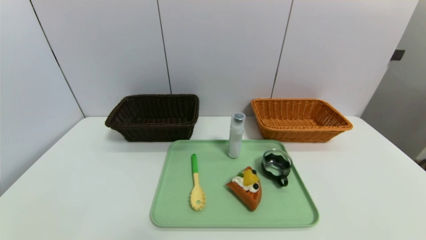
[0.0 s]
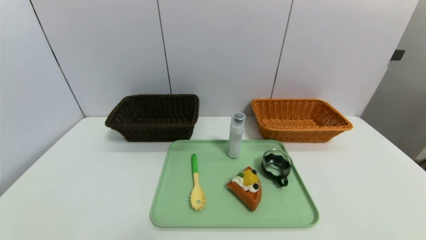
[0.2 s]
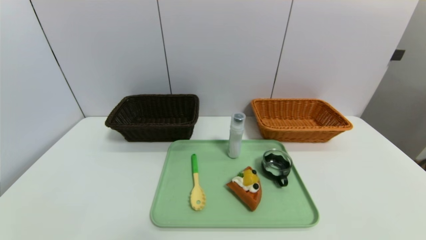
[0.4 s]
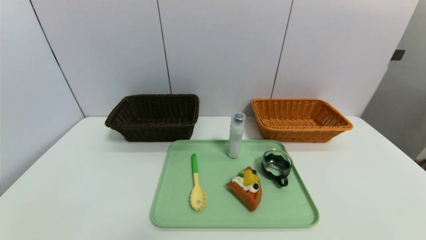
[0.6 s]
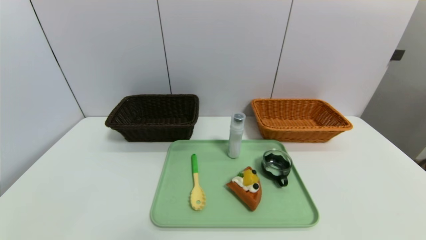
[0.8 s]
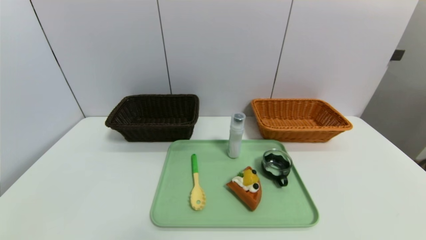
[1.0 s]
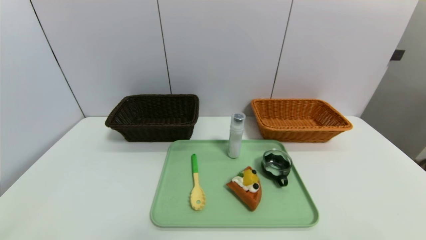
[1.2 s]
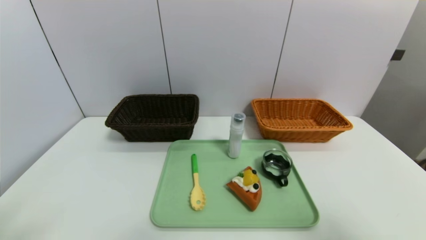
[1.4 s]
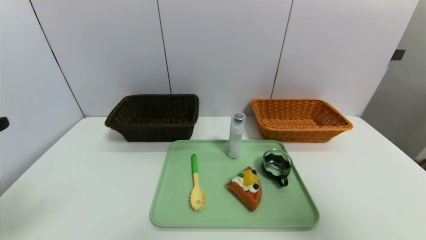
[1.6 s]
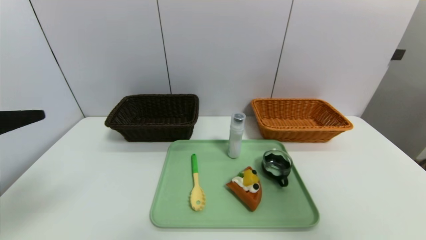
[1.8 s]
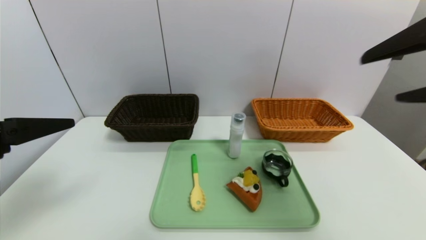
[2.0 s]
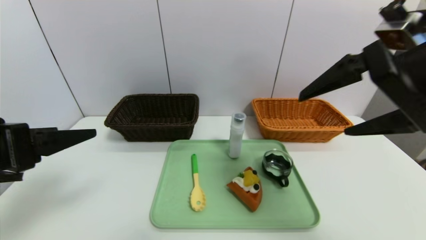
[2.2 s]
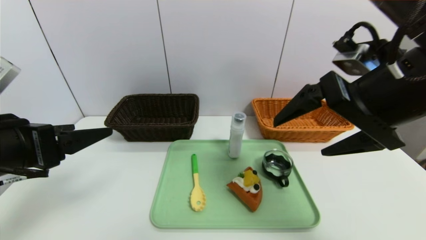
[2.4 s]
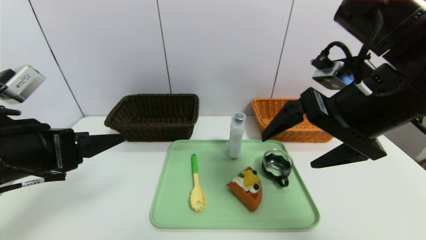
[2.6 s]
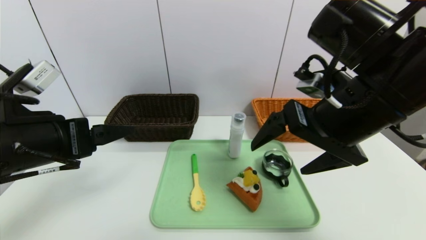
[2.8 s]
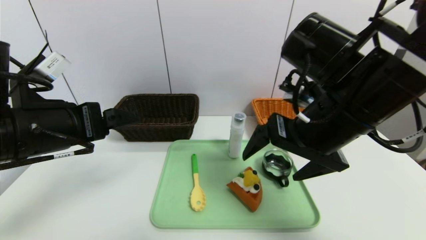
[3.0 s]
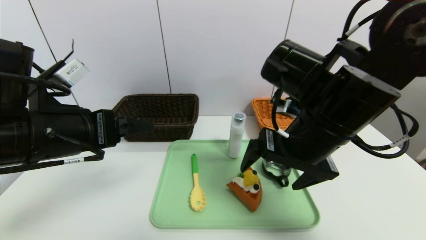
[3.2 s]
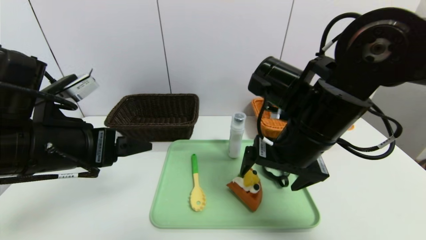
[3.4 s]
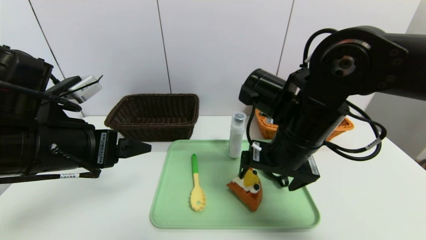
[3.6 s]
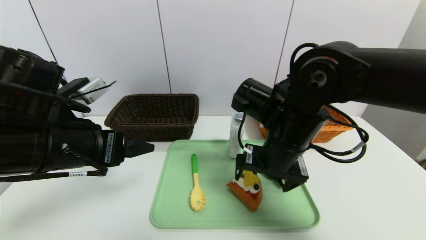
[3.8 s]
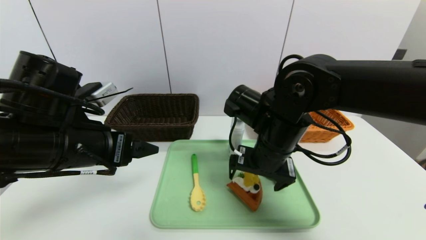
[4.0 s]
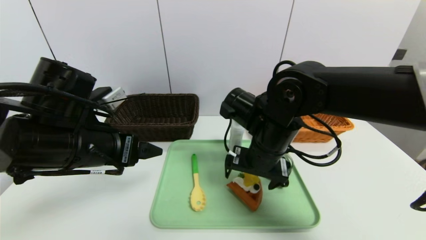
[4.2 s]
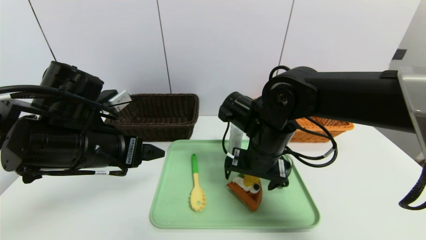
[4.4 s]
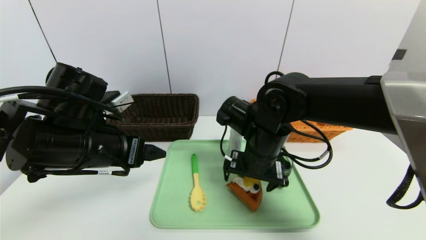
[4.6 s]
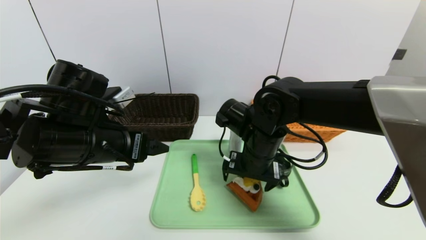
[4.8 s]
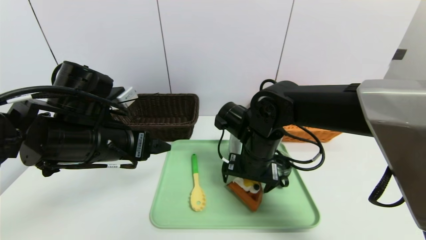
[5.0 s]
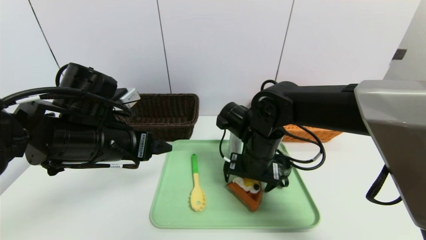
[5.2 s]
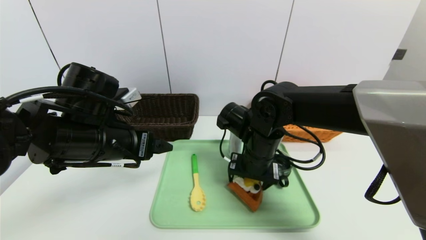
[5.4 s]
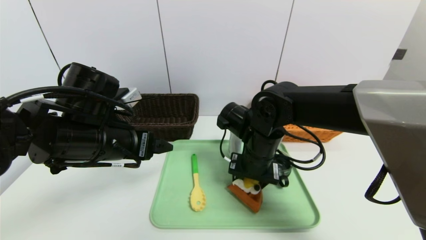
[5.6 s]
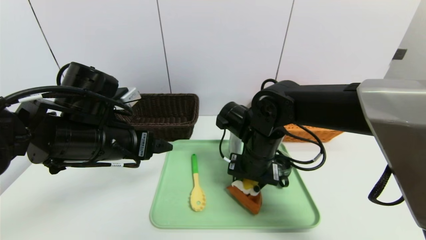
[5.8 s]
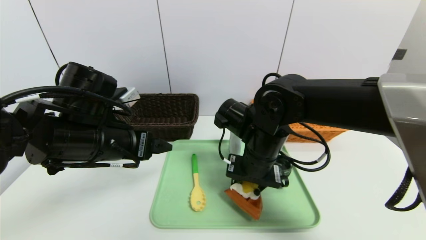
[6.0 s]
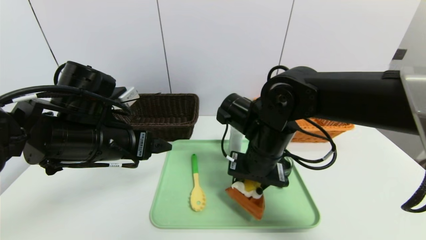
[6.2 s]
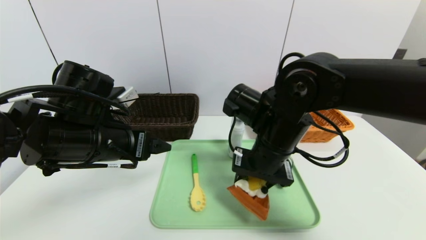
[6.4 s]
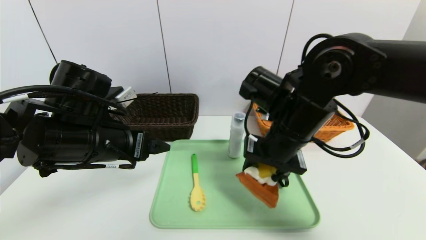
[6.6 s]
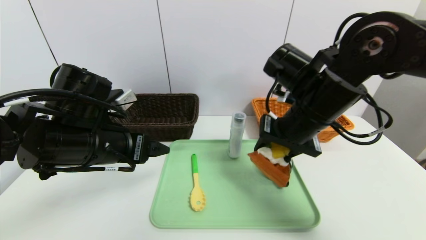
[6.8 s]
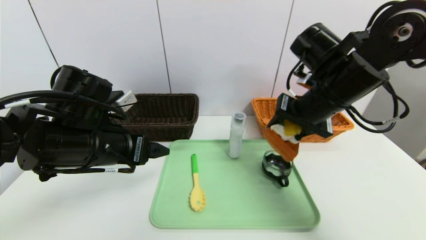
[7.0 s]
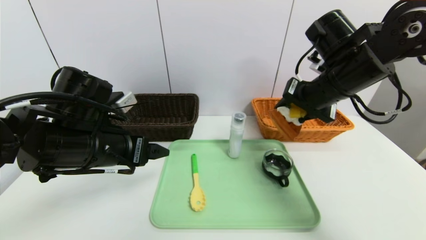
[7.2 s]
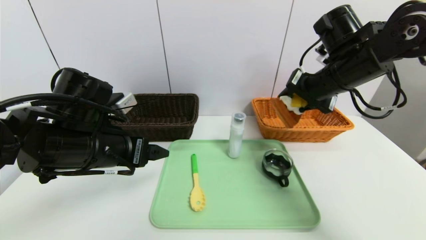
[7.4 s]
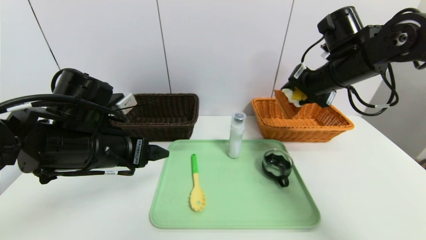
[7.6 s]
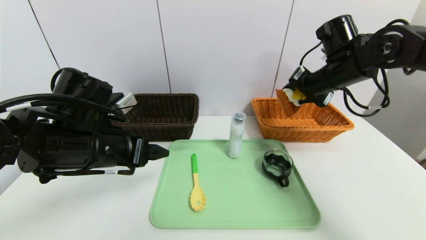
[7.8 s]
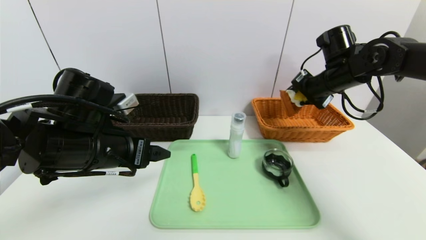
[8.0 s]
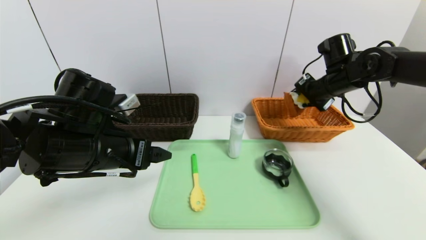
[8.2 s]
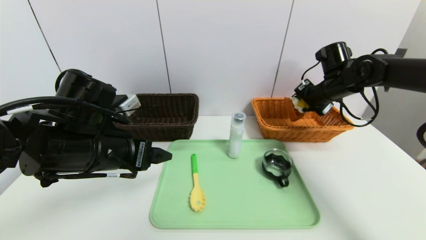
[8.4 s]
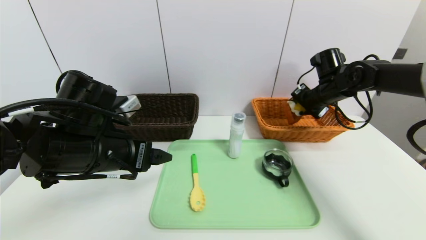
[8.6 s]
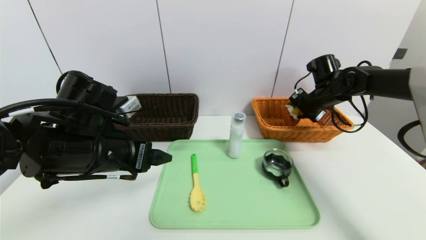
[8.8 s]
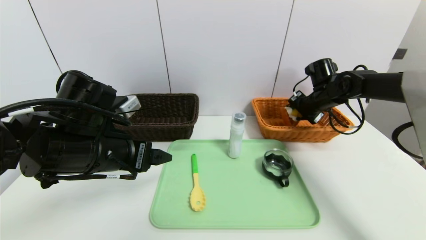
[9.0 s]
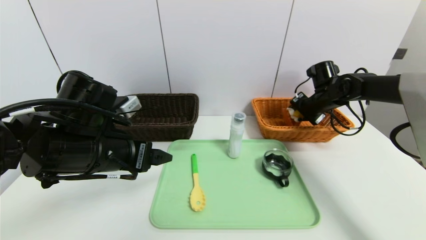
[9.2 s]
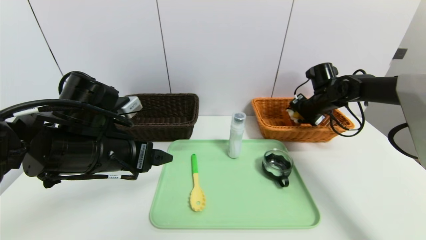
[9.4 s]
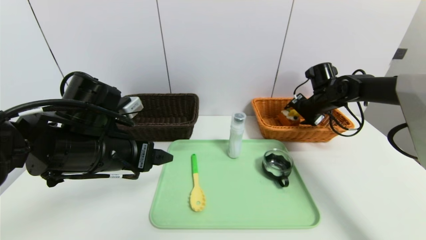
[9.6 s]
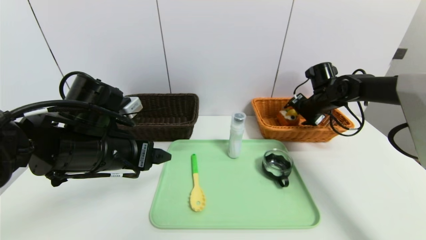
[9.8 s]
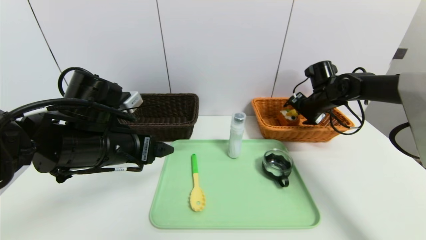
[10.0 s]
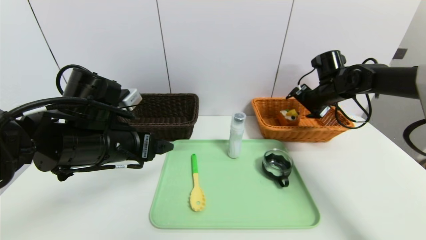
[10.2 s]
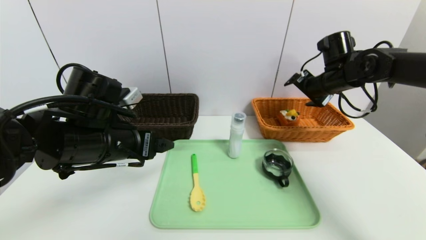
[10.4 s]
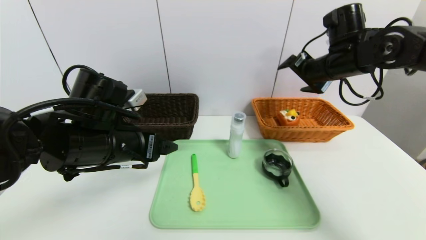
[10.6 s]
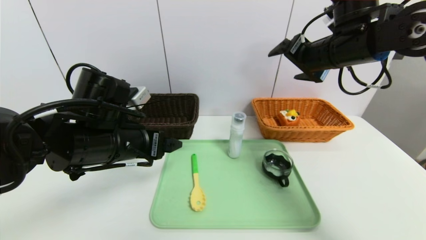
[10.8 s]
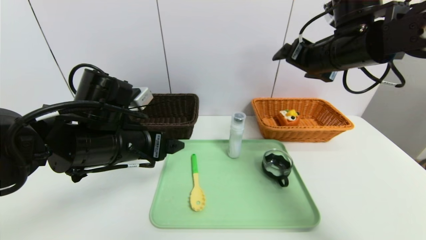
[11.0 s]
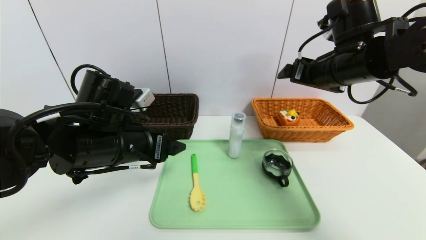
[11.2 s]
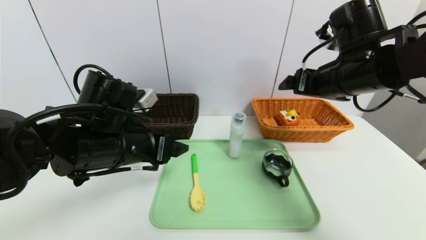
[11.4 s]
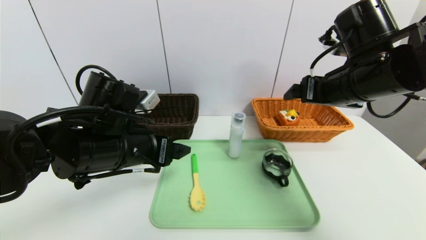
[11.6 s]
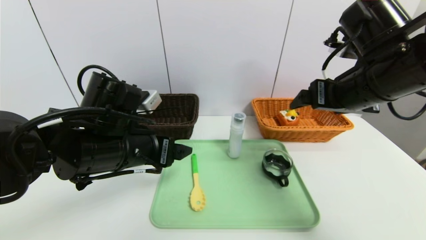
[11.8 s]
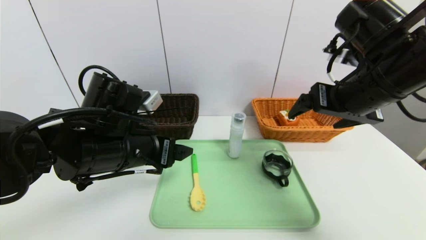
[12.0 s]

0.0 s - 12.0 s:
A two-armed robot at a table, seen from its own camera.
Task of the whole recording: place the food in the right basket with the right gripper, and place the non food items in the left basket with the left gripper.
Step, 0.0 s - 10.0 s: Grasp the triangle cake and put it in the right basket.
0.0 s - 1.6 s: Both grippers travel together upward, about 30 cm.
1.6 s - 3.0 s: The left gripper heads forward and to the right, covering roughly 15 cm. The right gripper shifts about 25 cm to the left, forward and downward.
3.0 s - 4.4 s: The right gripper moves downward, forward and to the left, roughly 15 cm. The left gripper changes place by roughly 5 cm.
4.4 s - 6.0 s: The right gripper closes.
6.0 s - 7.6 s: The right gripper travels to the right, upward and forward by some 20 cm.
7.6 s - 9.0 s: The right gripper moves downward, forward and to the right, about 15 cm.
9.0 s - 10.4 s: The right gripper goes some 10 cm upward, and opens up.
10.4 s - 12.0 s: The right gripper travels backward by about 15 cm.

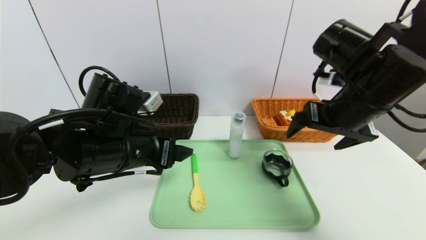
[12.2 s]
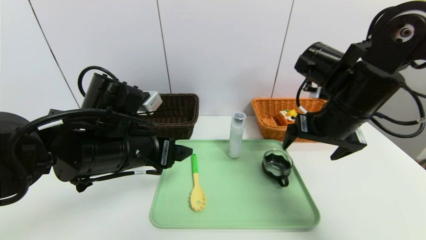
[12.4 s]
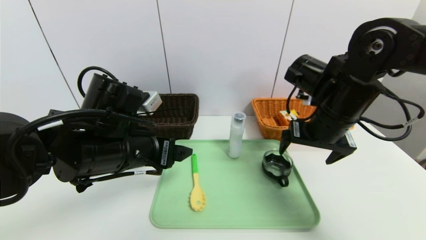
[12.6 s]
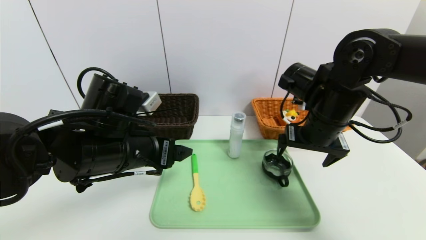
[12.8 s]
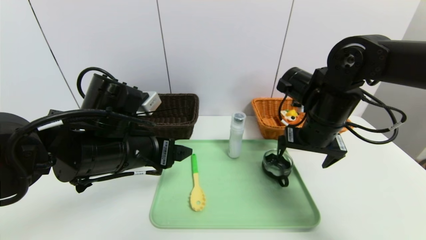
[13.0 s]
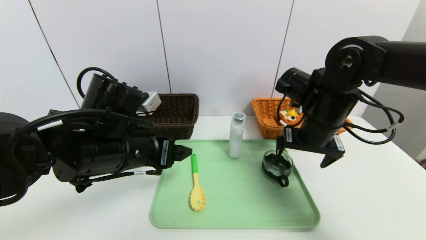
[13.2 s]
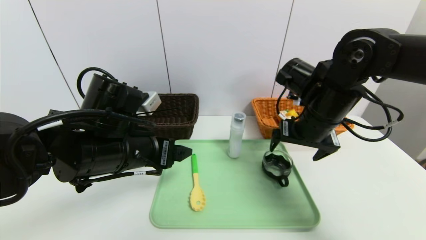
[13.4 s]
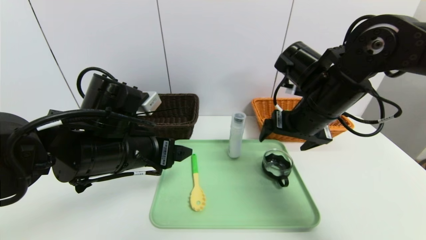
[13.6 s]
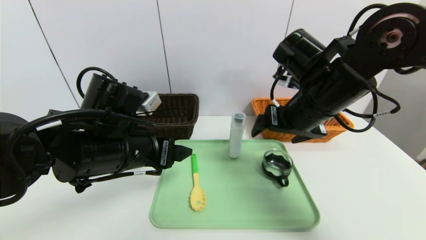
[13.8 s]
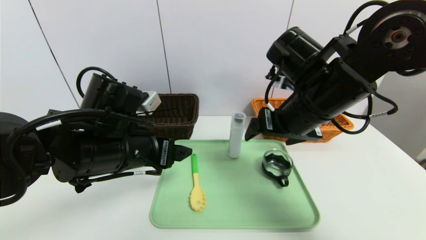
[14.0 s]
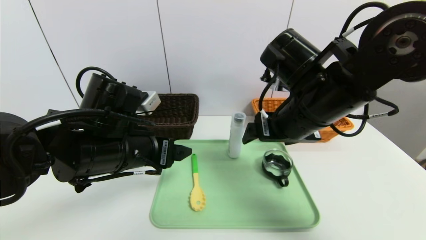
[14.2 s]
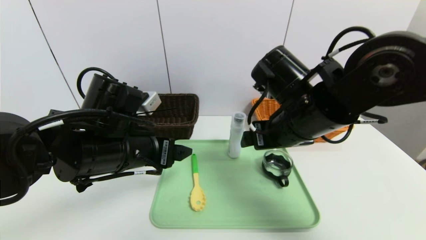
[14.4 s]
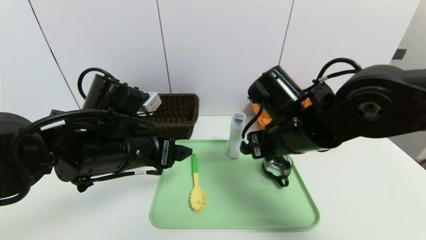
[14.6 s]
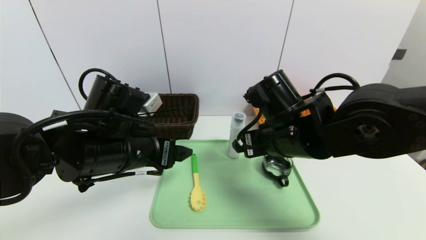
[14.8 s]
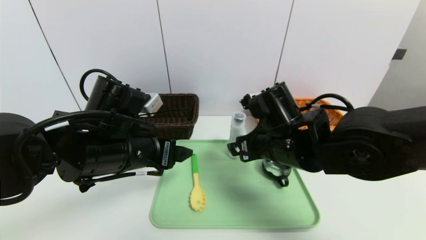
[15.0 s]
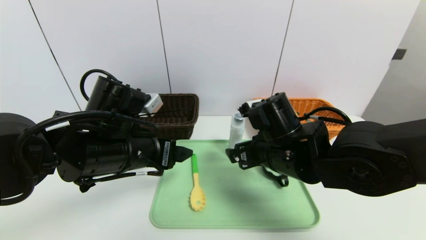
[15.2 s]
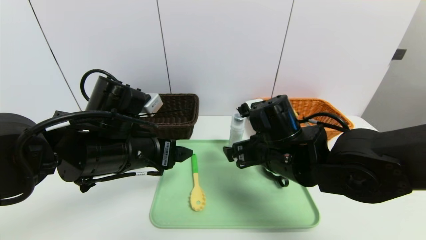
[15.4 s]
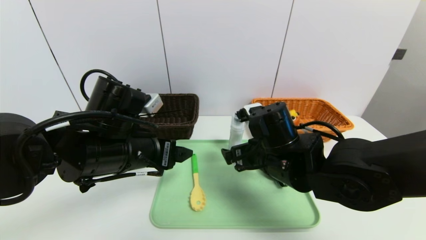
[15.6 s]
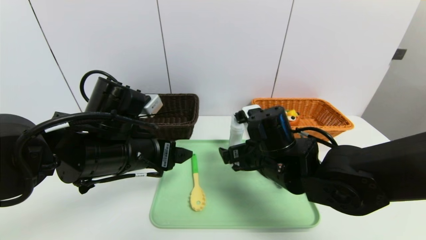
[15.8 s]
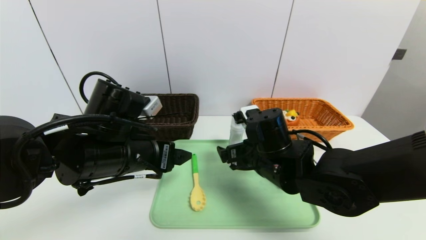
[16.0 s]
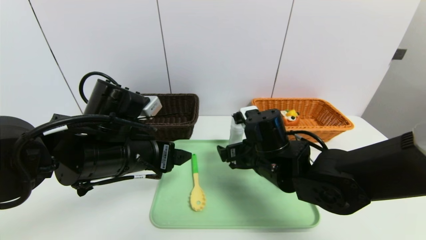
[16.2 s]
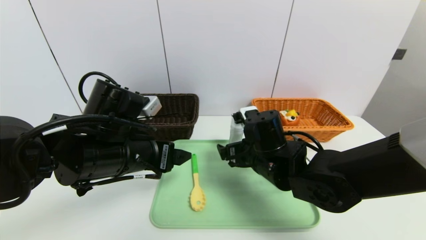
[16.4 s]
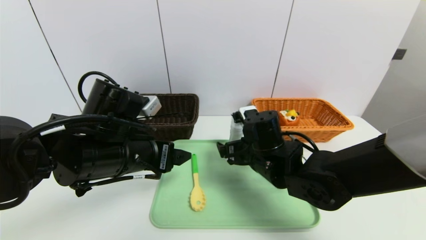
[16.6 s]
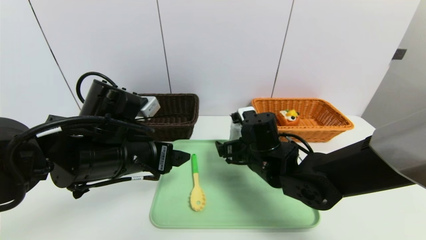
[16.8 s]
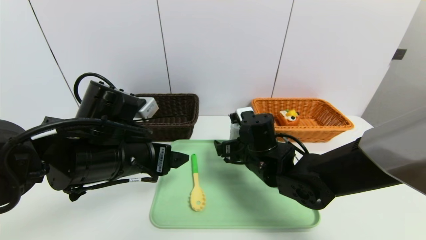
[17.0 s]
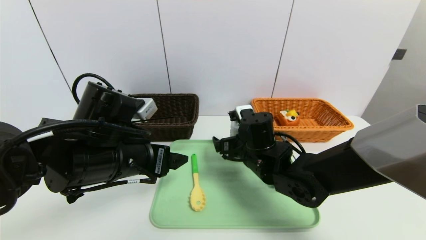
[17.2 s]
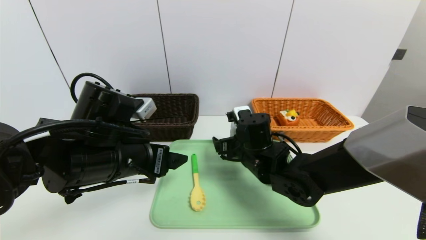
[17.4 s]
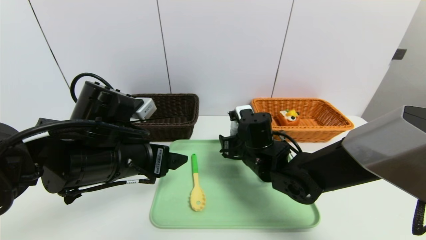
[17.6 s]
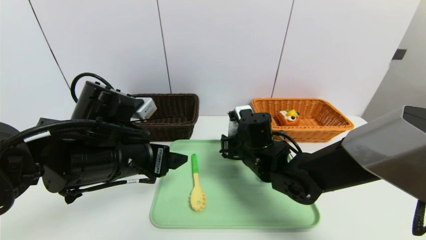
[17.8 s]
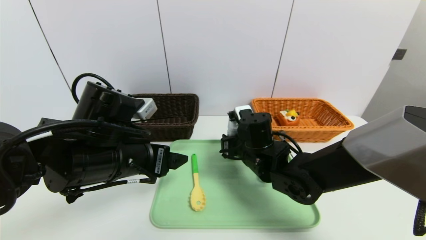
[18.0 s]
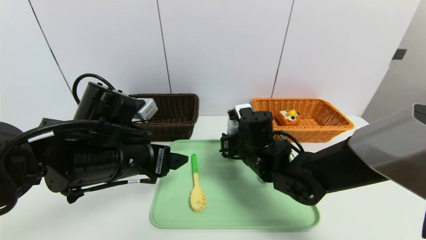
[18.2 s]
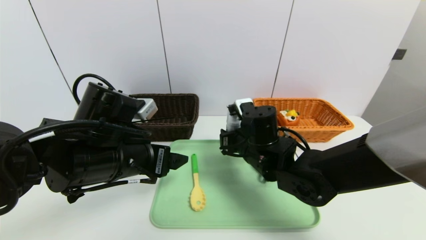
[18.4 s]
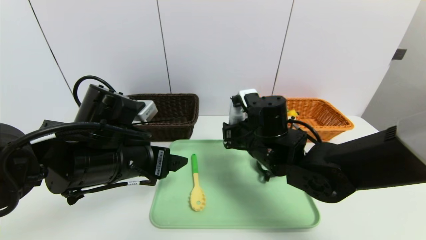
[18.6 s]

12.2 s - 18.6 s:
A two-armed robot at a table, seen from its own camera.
Task of the whole recording: place the food in the right basket with the right gripper, and place the non food items in the left basket with the left gripper.
12.2 s - 13.8 s: The right gripper travels to the left by some 5 cm.
13.8 s - 15.4 s: The right gripper travels downward and to the left by approximately 10 cm.
15.4 s - 17.0 s: The right gripper heads downward, covering approximately 5 cm.
17.0 s - 18.6 s: The right gripper moves about 5 cm, and closes.
